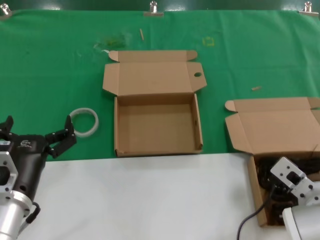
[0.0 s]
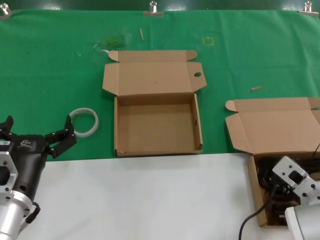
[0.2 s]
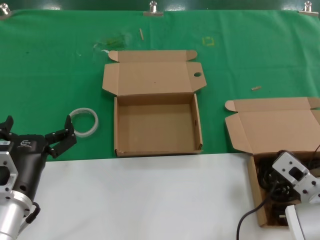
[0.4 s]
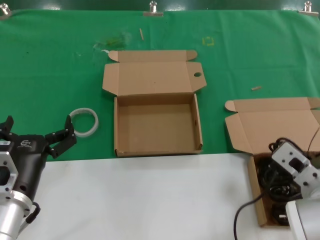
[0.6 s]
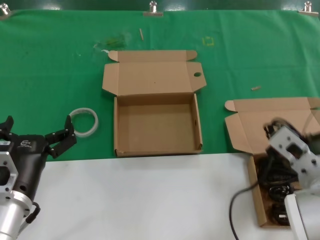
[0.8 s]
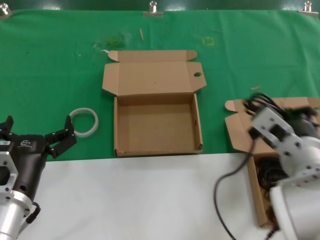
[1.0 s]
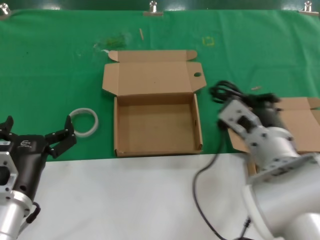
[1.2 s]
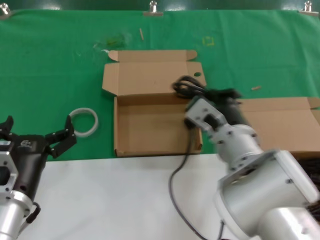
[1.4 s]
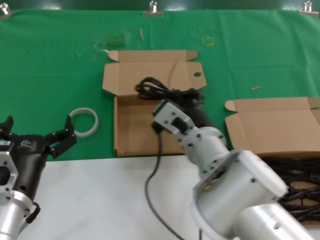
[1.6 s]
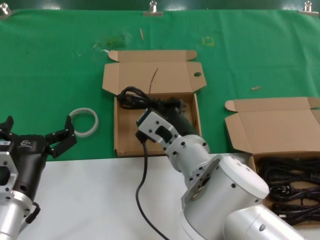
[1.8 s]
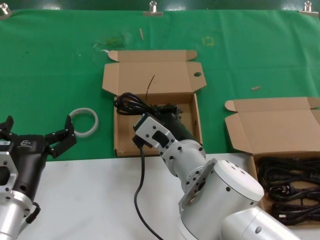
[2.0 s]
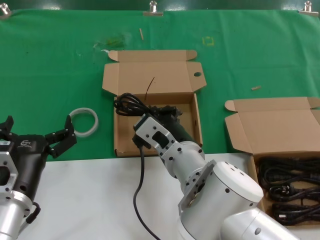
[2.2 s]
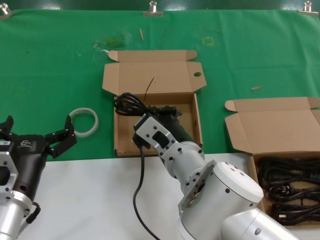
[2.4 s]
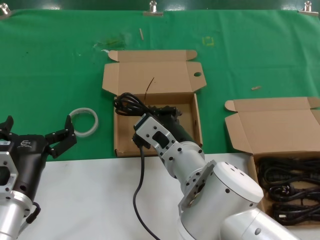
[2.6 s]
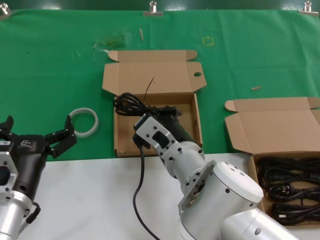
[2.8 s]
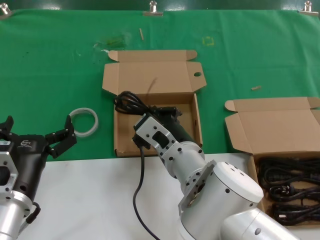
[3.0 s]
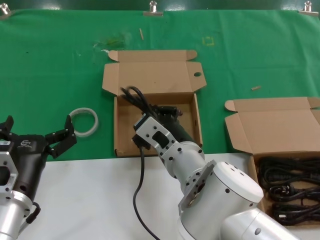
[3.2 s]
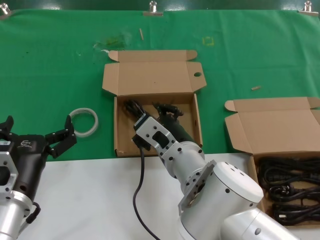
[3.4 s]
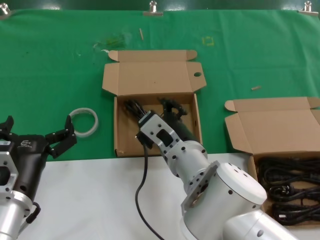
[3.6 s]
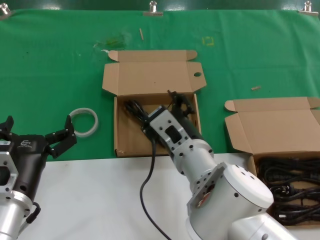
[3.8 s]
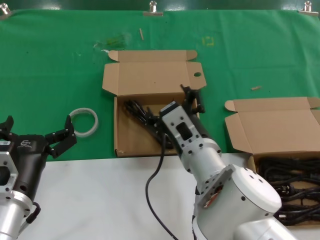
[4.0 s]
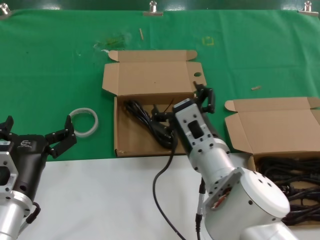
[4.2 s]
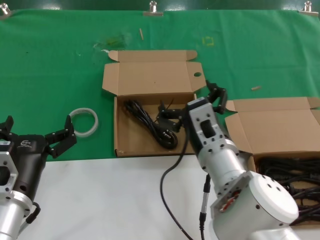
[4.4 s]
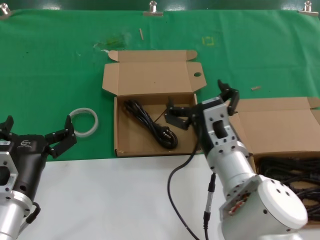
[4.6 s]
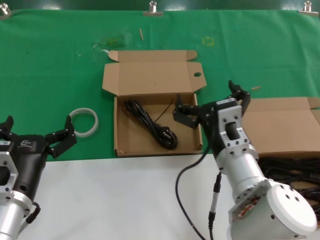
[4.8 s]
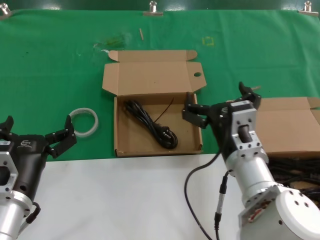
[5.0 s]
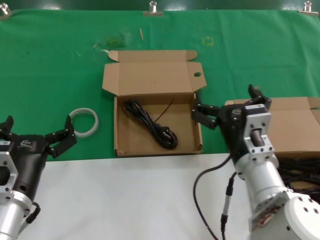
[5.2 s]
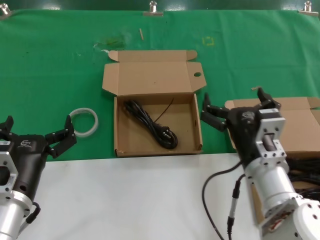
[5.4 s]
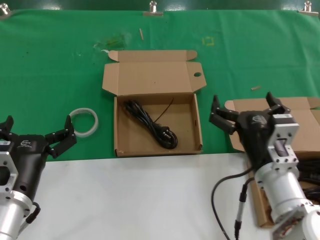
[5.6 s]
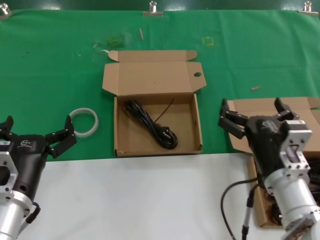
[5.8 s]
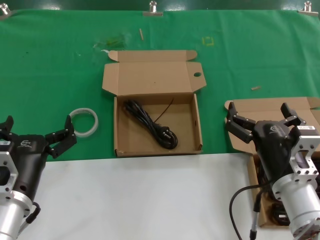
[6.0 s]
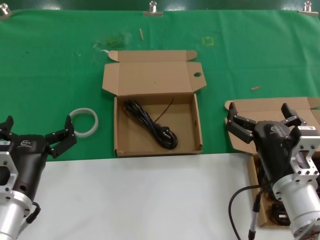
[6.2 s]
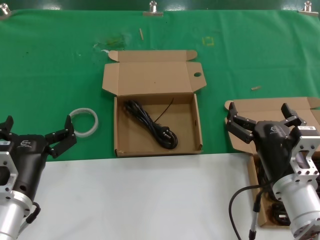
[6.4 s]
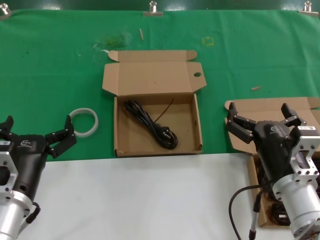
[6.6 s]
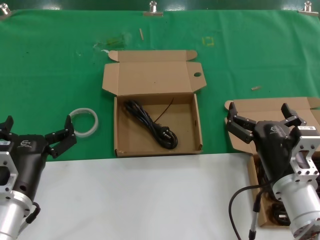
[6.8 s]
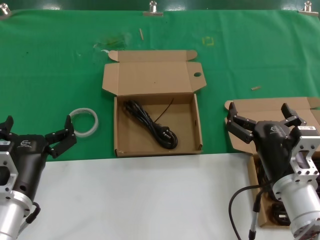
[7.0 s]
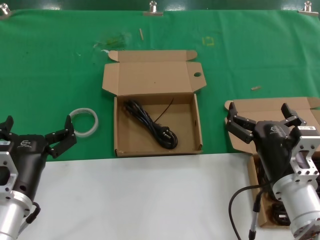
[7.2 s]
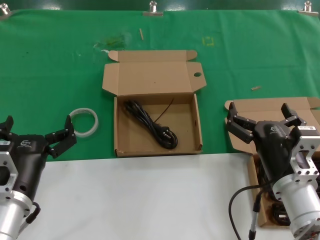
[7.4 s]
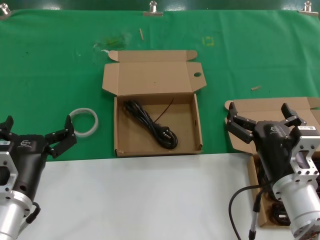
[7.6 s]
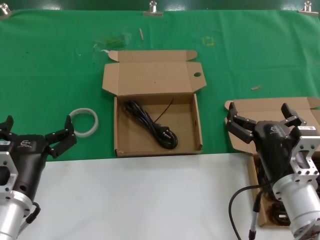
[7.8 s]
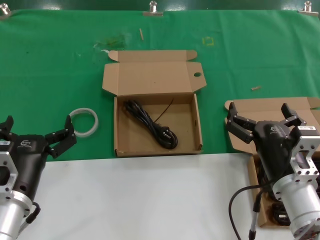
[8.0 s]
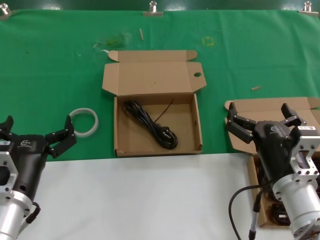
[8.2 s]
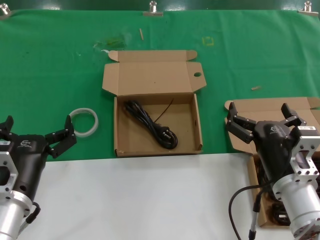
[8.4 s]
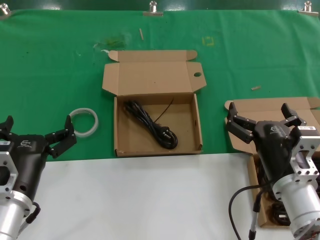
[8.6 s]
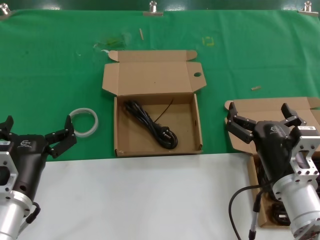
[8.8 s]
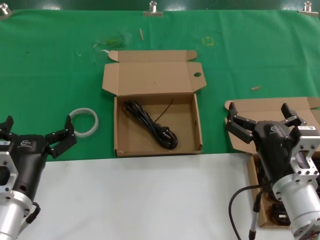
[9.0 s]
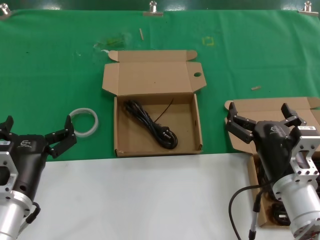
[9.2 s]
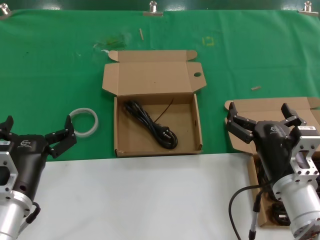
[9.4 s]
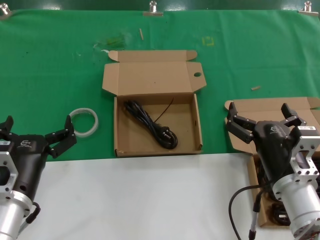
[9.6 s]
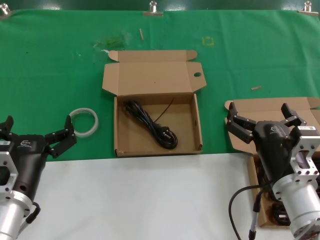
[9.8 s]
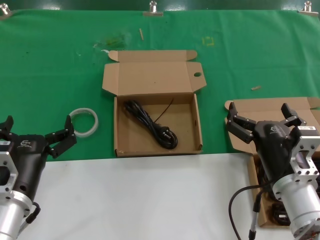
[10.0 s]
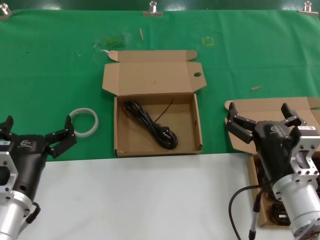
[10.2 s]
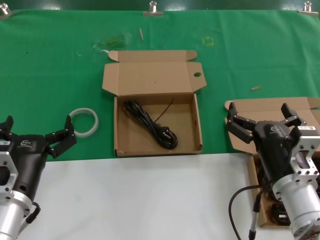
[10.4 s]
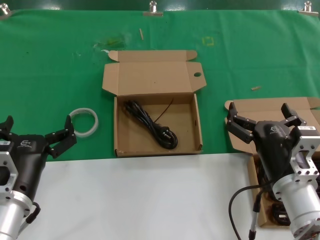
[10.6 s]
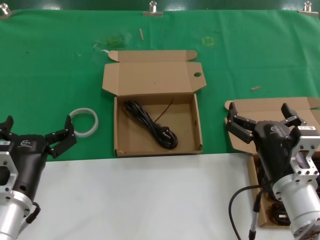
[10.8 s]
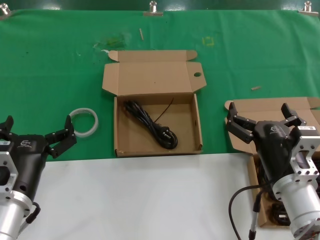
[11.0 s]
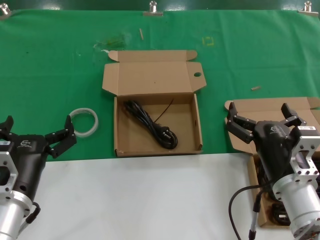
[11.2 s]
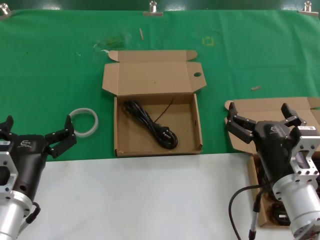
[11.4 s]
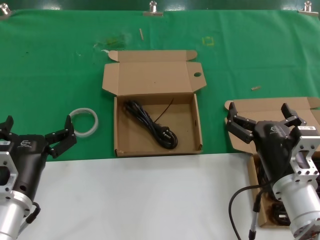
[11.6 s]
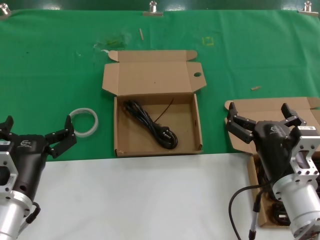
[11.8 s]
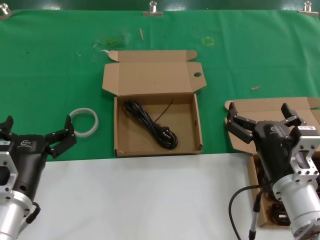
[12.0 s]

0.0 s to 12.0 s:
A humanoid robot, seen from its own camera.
Task of the whole recording: take the parts from the box containing them and put them into an empty box.
Step, 0.0 to 3.2 s: Place the data cable in the another box.
0.0 to 1.6 s: The right hand heads to the left, covering approximately 15 cm.
1.6 to 3.0 s: The hands make only small movements.
3.0 to 4.4 s: The right hand travels to the right by some 5 cm.
4.4 to 6.0 s: The right hand travels to the right and backward by some 15 cm.
6.0 to 12.0 s: Both hands stay put.

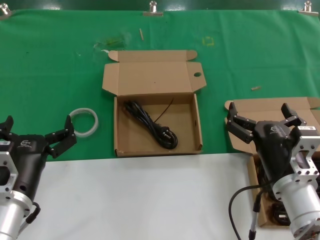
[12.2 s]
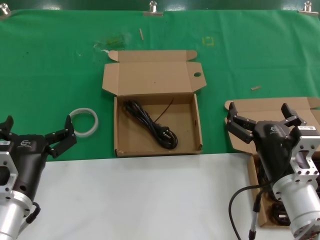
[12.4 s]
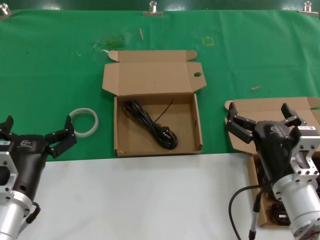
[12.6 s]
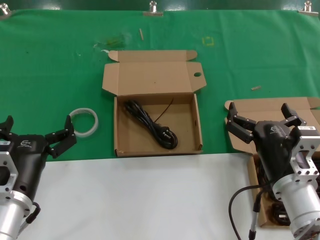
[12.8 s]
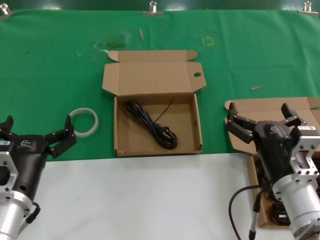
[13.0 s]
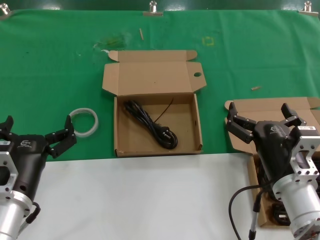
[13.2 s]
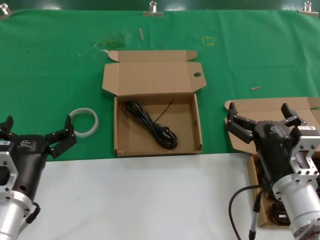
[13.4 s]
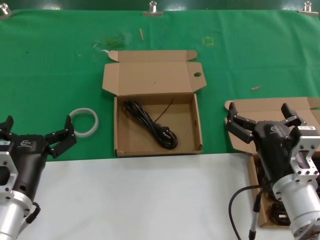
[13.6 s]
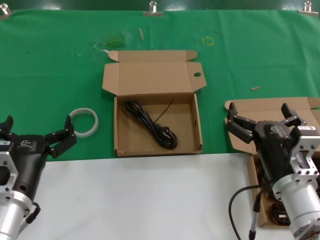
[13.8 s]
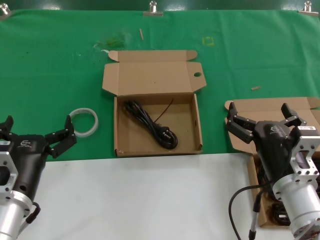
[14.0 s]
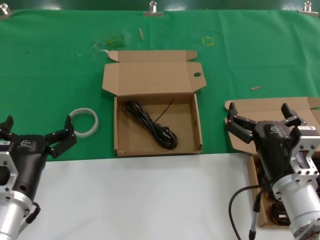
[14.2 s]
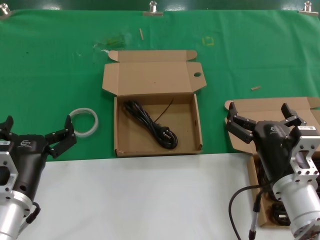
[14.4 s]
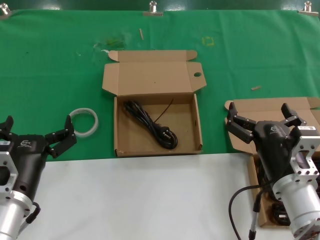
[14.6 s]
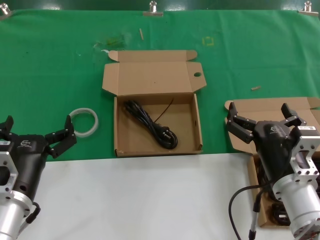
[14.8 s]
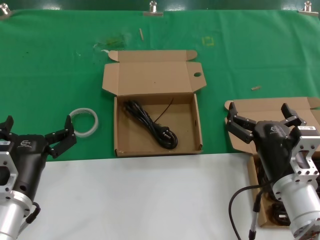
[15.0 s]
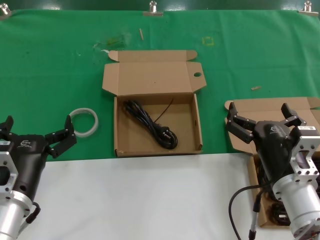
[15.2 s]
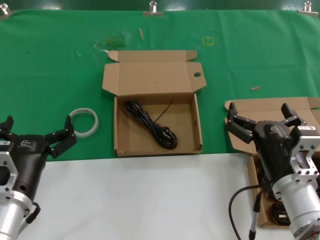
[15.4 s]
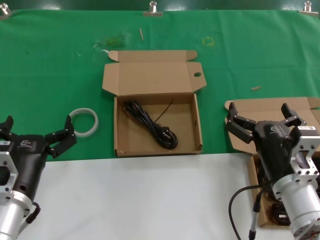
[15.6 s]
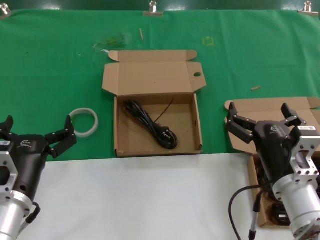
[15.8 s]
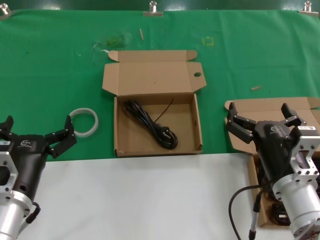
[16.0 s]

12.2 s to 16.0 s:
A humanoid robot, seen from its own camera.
Task of the whole recording: take the parts from the box containing them and put them into an empty box.
12.2 to 16.0 s: The two hands keep their place.

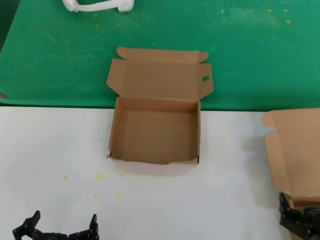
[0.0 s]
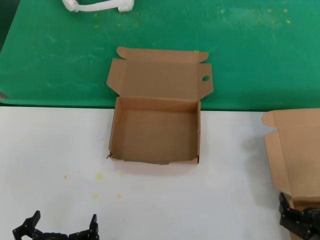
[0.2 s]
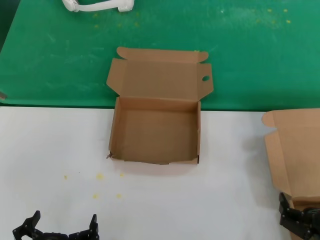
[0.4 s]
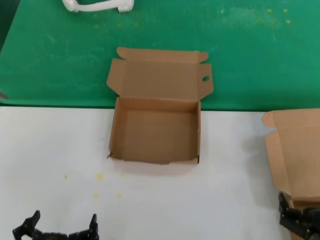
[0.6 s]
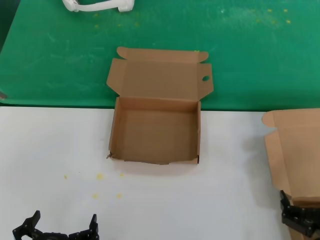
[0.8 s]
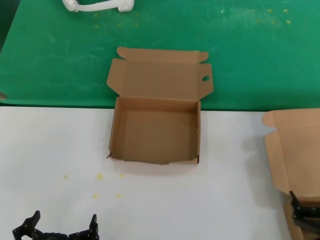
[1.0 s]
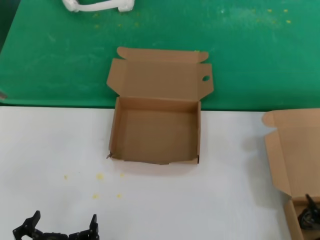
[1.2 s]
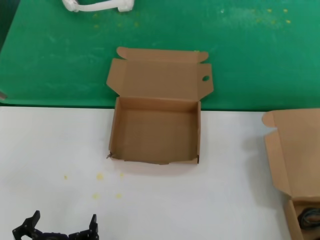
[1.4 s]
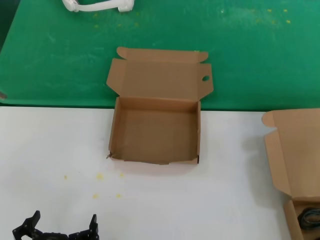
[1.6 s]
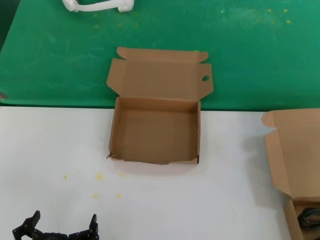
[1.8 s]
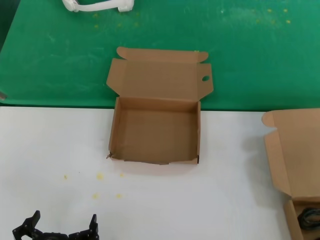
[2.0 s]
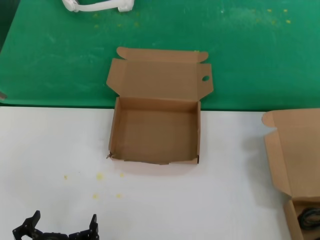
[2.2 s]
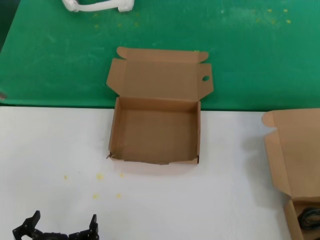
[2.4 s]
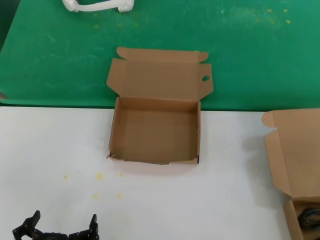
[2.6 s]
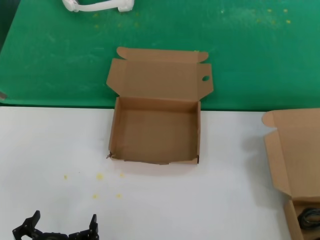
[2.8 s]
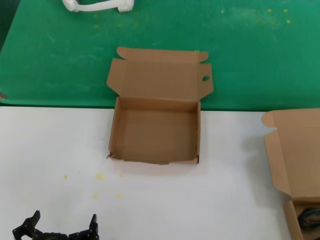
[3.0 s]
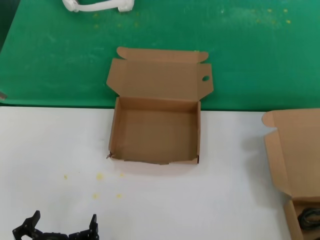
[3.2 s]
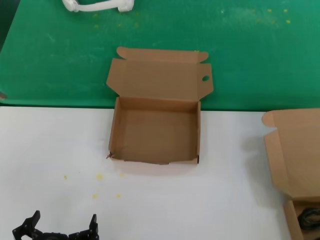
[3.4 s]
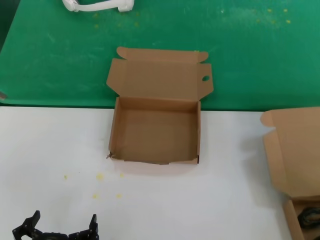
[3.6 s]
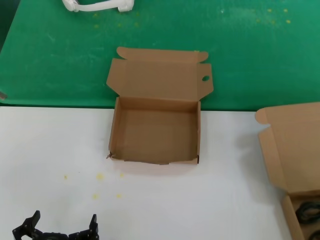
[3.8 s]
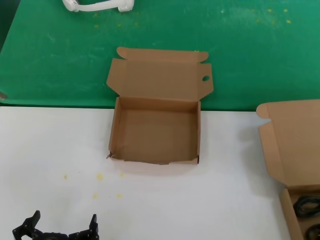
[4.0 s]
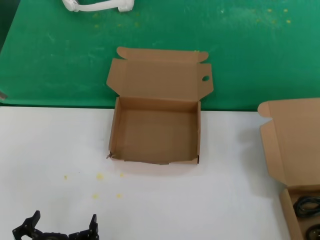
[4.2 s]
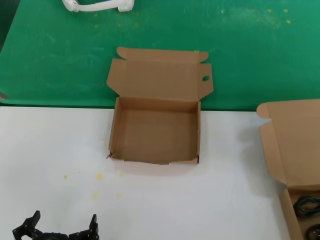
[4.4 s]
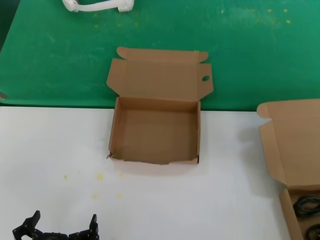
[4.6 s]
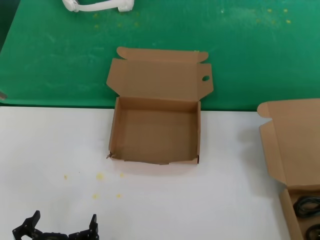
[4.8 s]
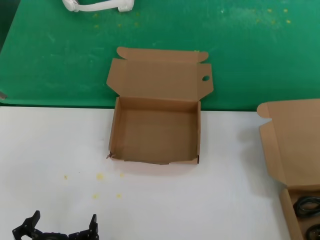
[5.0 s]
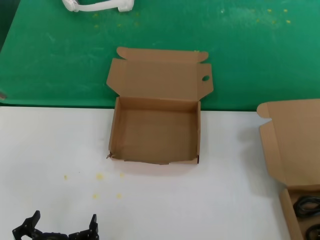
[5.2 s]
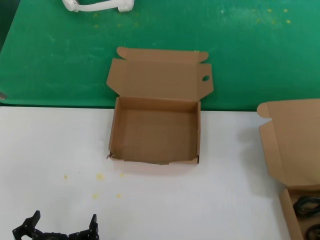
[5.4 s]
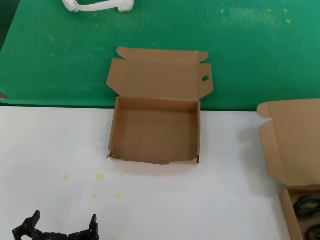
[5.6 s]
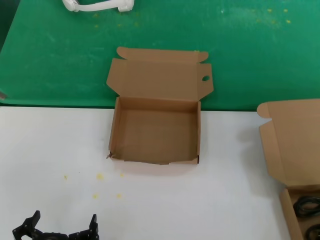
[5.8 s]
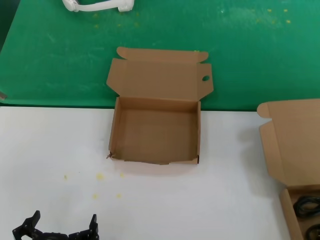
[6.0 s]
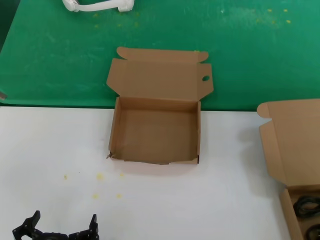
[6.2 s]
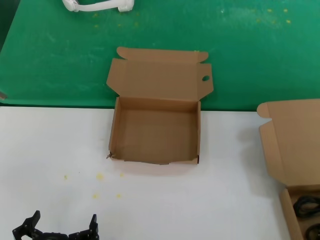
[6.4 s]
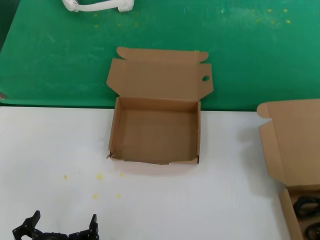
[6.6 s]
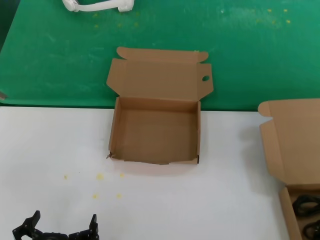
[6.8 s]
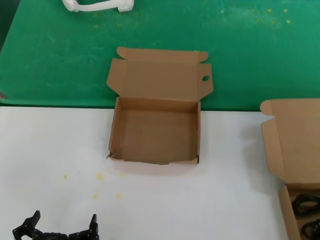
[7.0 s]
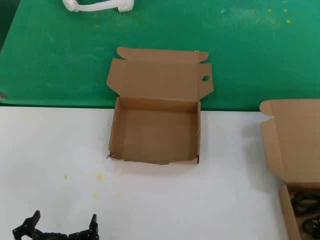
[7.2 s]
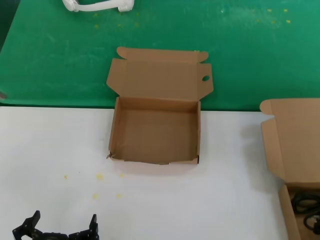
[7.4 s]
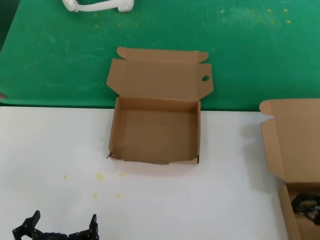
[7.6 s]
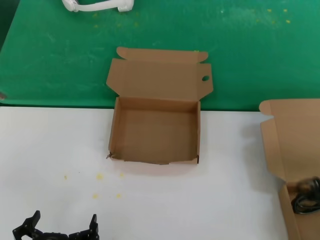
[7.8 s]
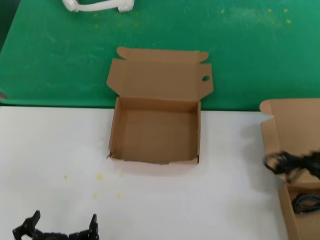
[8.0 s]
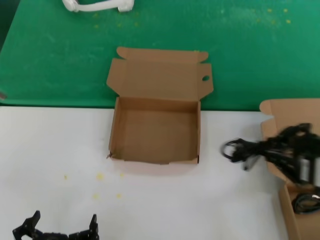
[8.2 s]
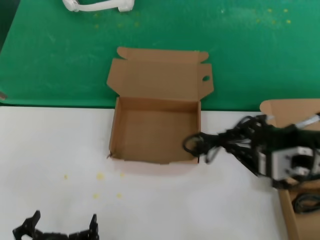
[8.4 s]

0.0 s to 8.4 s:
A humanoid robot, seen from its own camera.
Task of the whole recording: take the parts from the box containing them and put them into an empty box.
Step, 0.0 to 7.0 s: Grasp the data cable.
0.0 to 1.4 s: The right hand shifts some 10 cm to the right and upward.
2.8 to 4.2 s: The right hand shifts about 5 cm forward.
5.6 to 7.0 s: Both hands stay about where they are.
7.0 to 8.4 s: The right hand shifts roughly 20 cm to the left and upward.
